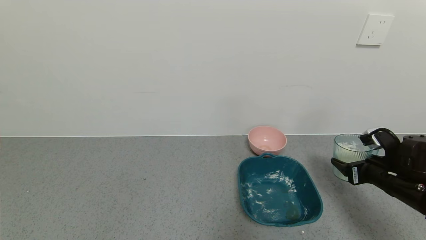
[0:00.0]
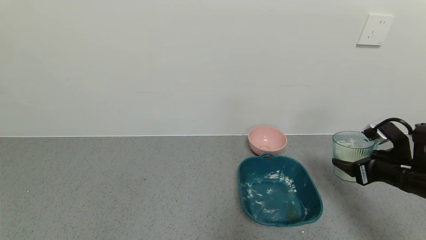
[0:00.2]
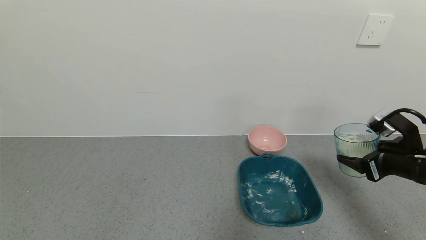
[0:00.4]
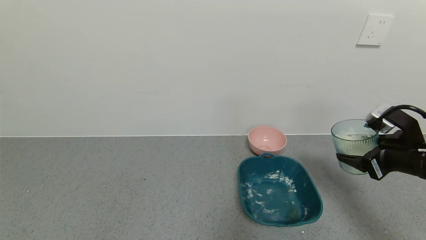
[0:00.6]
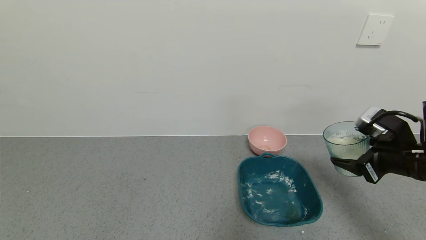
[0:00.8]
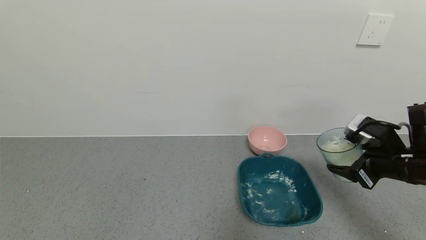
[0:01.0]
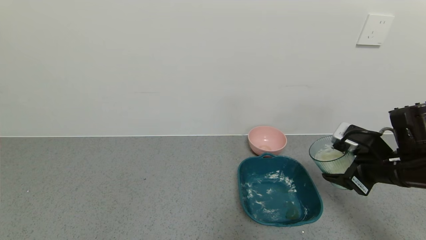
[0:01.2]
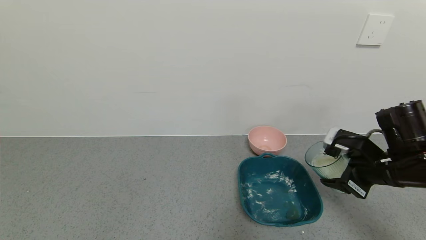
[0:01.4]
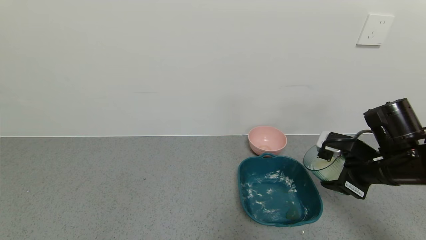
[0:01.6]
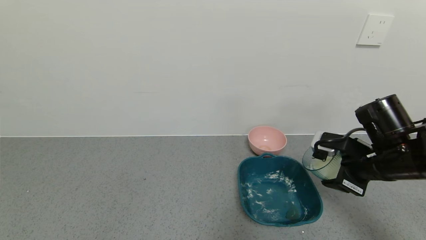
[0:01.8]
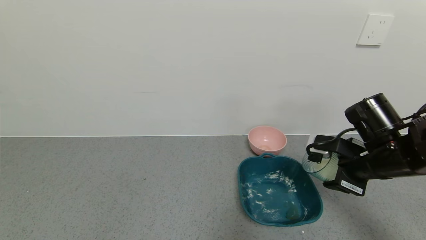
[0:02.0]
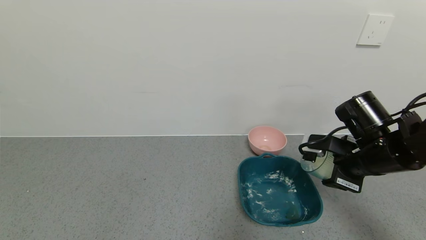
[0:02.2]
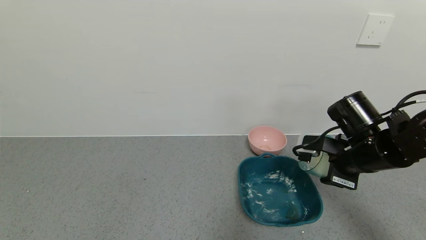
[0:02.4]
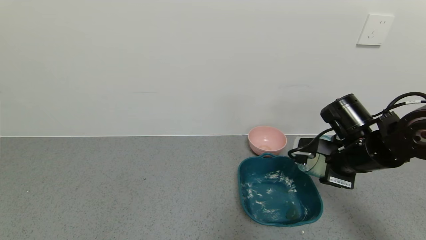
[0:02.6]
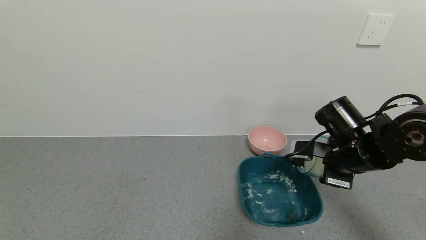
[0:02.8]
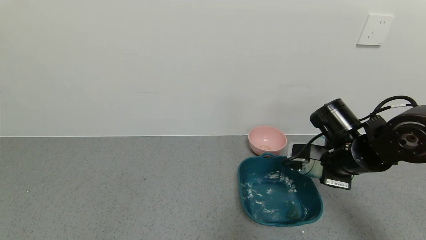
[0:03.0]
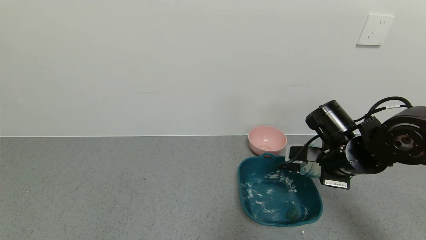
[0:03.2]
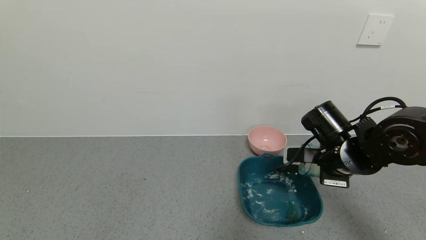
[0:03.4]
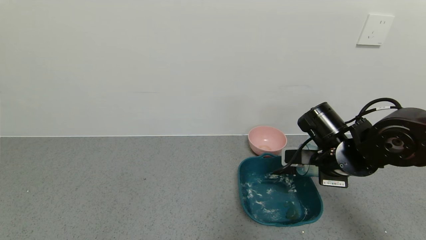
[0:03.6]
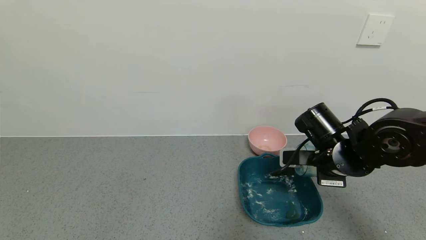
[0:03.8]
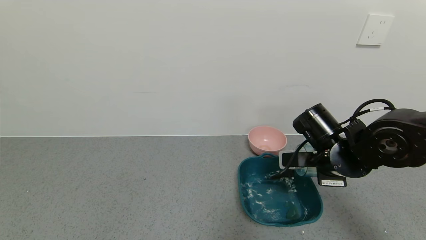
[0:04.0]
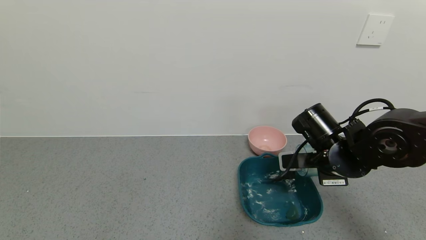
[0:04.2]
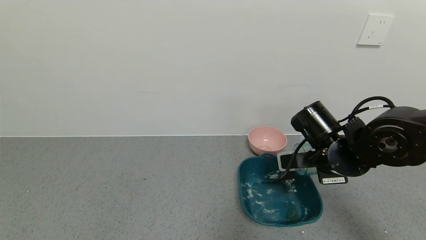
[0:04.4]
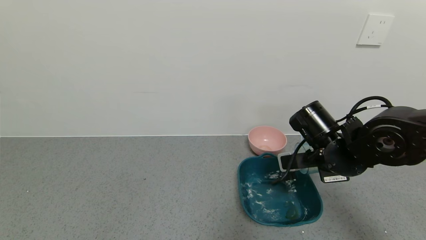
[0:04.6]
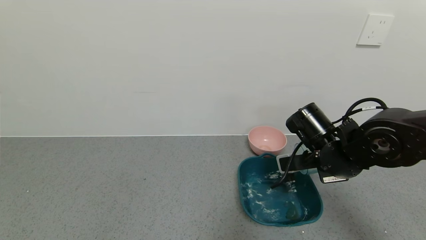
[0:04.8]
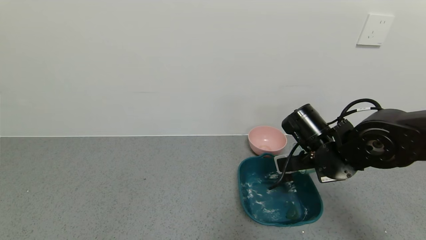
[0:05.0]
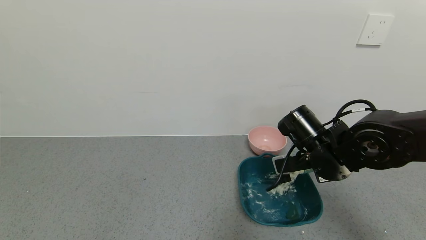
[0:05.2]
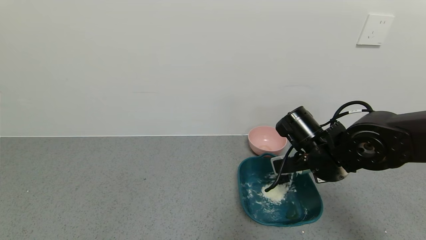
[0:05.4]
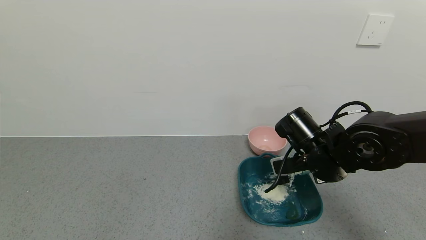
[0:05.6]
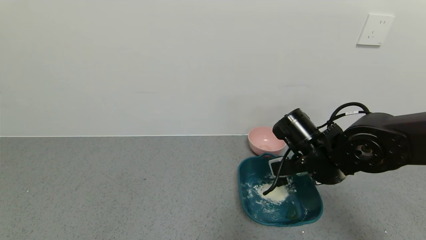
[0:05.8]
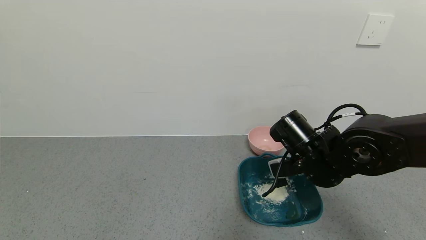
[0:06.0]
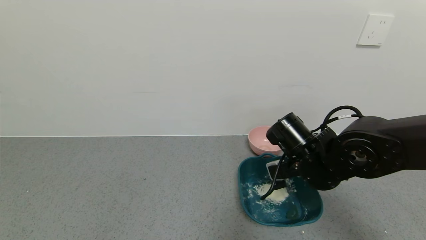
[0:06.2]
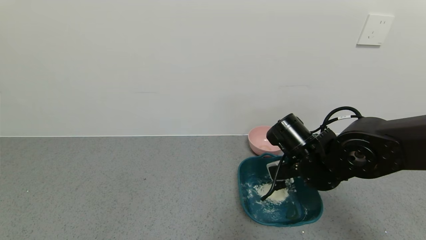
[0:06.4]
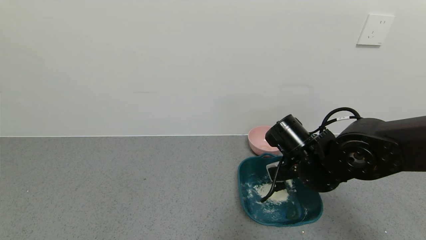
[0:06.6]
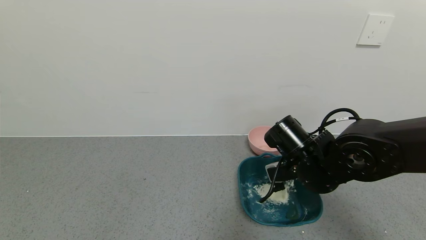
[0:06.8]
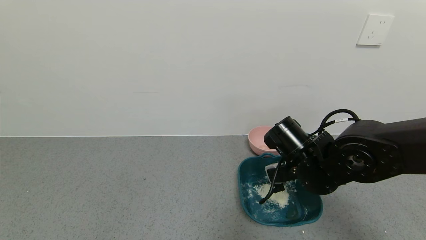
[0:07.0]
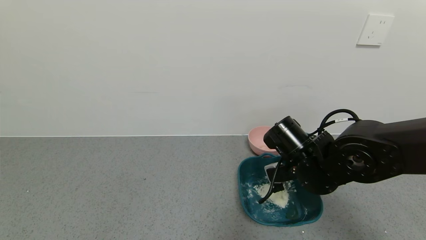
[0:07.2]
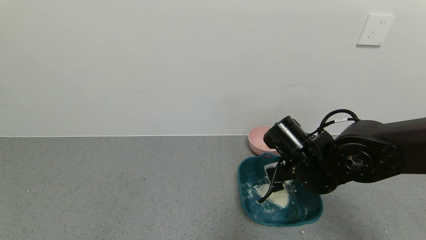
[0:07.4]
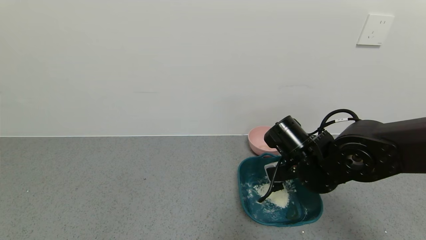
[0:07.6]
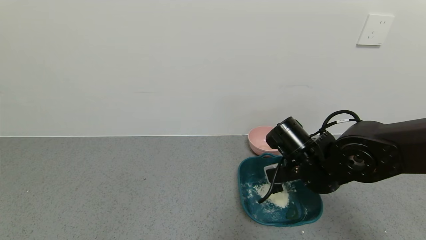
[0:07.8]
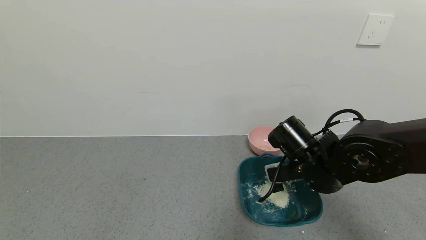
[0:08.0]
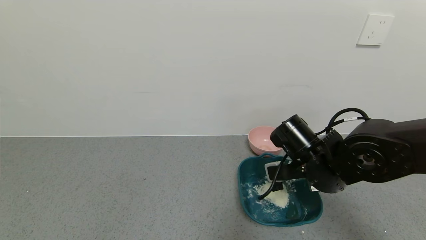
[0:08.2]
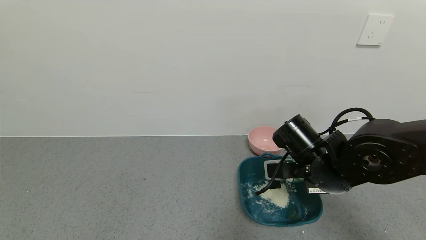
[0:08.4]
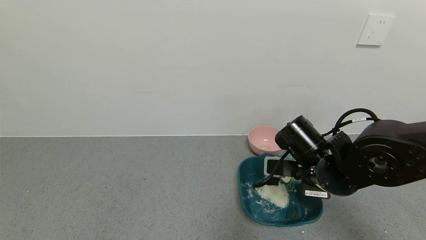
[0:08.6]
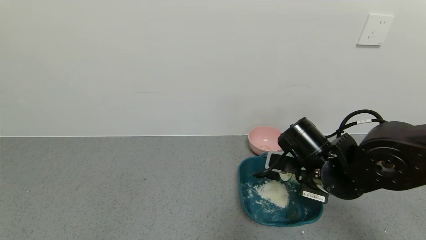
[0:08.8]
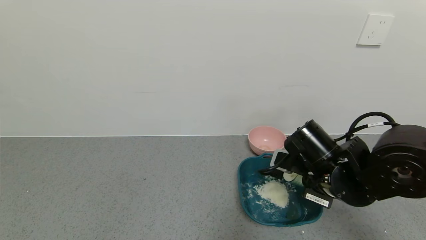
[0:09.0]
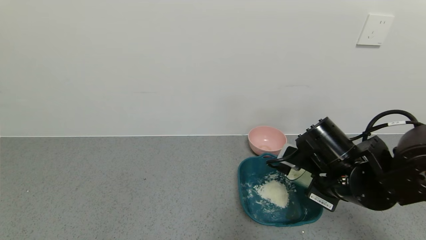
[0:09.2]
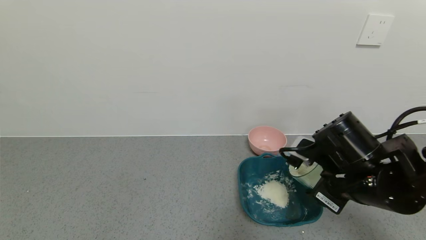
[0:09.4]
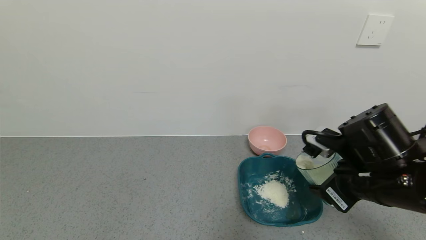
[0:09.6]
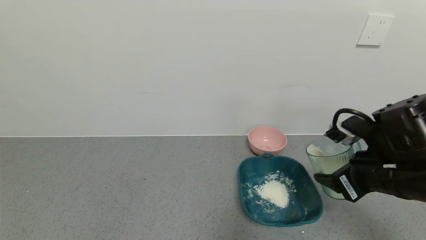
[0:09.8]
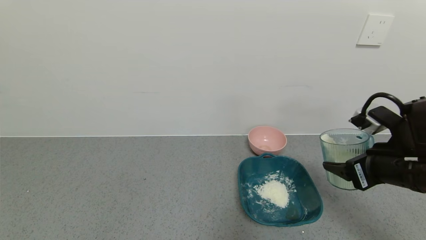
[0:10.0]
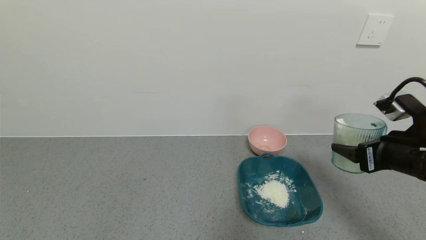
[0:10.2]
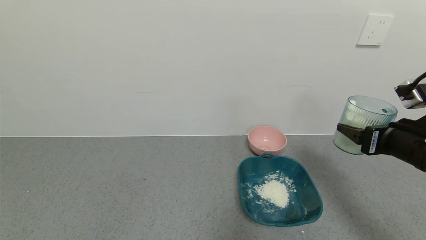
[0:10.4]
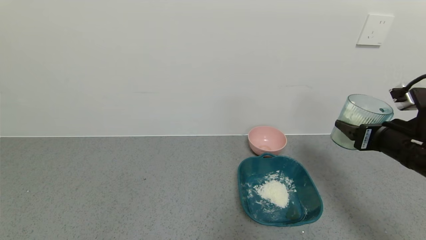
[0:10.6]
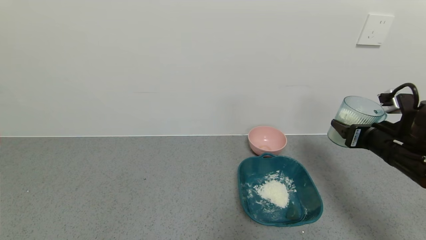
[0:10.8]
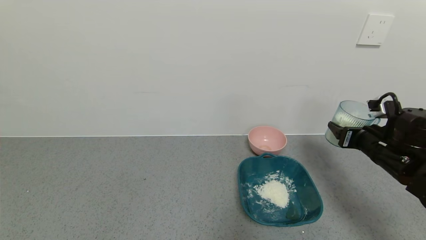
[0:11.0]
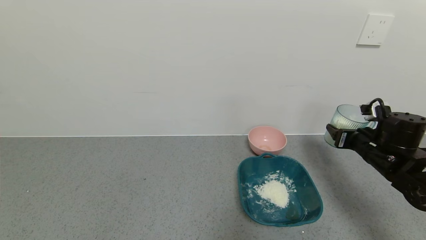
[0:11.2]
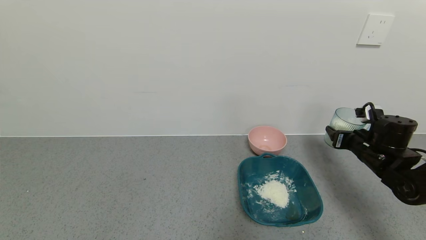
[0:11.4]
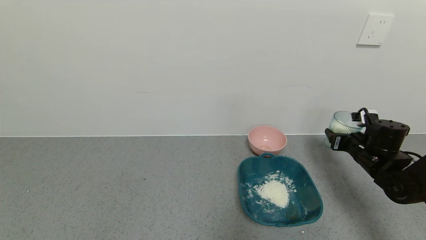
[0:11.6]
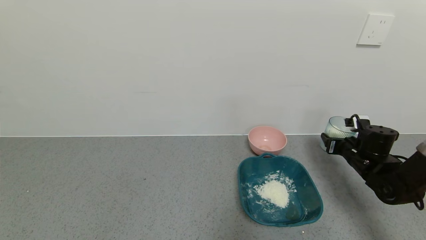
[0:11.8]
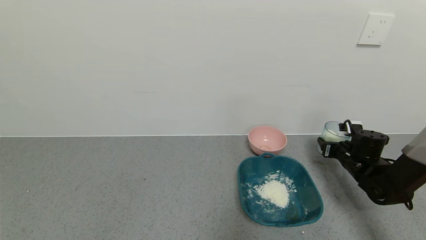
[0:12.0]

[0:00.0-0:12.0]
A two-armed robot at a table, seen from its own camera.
Task of the whole recording: use a gripper to pick up the cup and pour the powder into a bowl or tray.
Step, 0:00.0 to 0:09.0: Pour the powder into the pink bowl with the right gripper.
0:00.0 to 0:01.6: The right gripper shifts about 10 cm upward and to the left.
0:01.6 to 0:03.0: The right gripper shifts by about 5 cm.
0:03.0 to 0:04.4: The grippers stay close to where they were, moving slightly.
0:04.4 to 0:06.0: The grippers move only a little.
0:06.0 to 0:07.6: The two grippers keep their place.
0:09.0 to 0:10.4: The right gripper travels to the right by about 15 cm.
0:10.4 to 0:12.0: The right gripper moves downward and forward, some 25 cm.

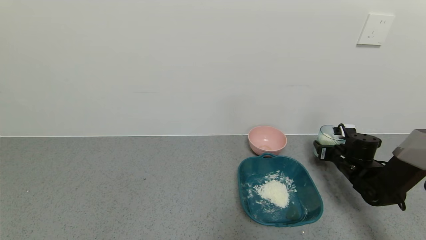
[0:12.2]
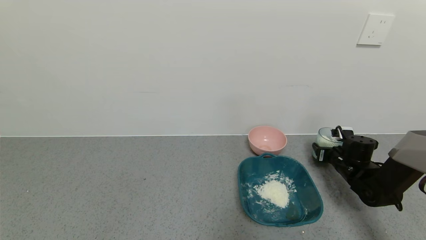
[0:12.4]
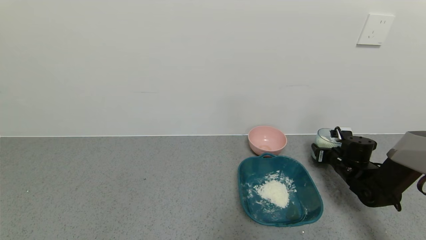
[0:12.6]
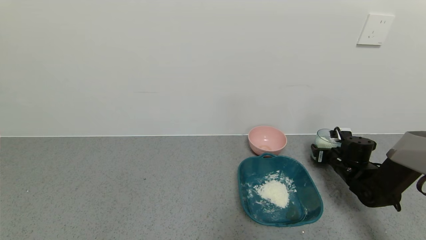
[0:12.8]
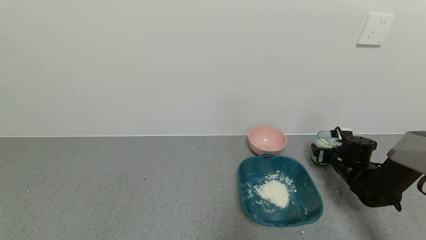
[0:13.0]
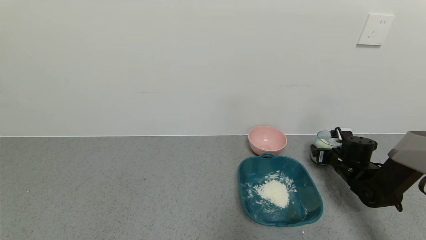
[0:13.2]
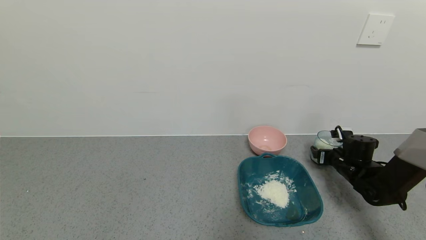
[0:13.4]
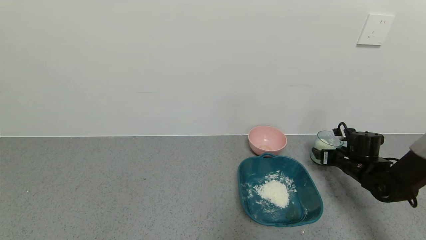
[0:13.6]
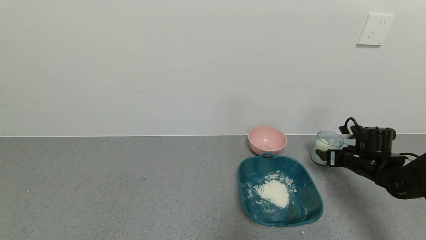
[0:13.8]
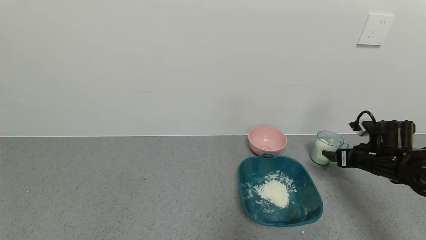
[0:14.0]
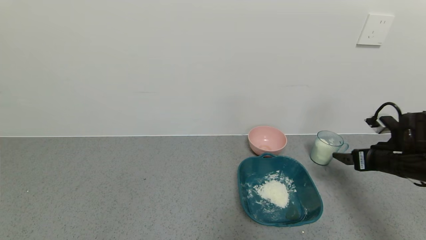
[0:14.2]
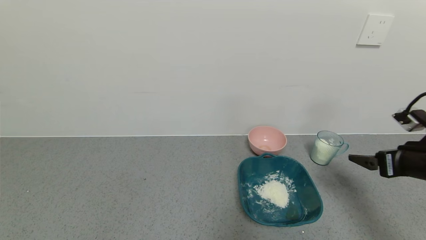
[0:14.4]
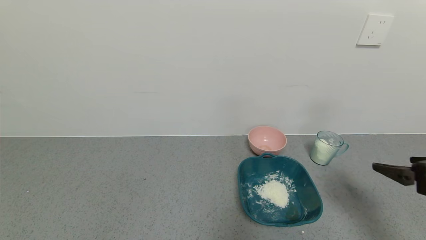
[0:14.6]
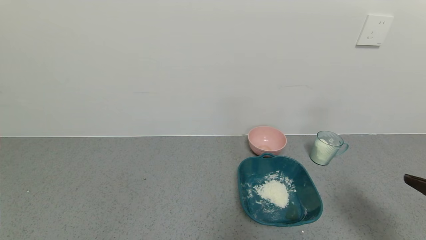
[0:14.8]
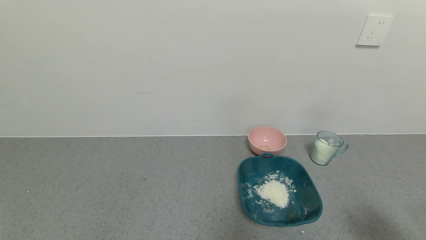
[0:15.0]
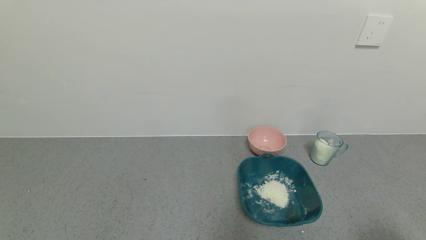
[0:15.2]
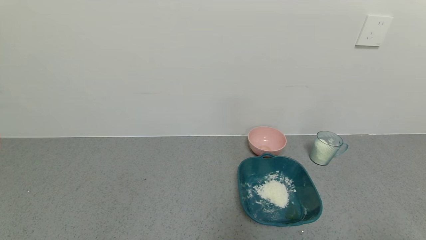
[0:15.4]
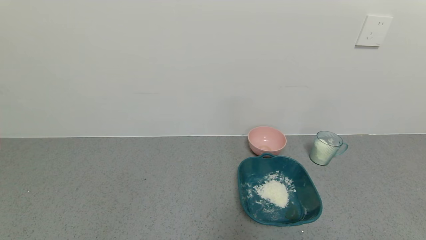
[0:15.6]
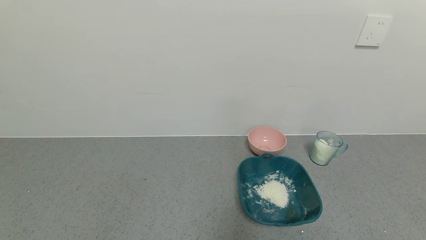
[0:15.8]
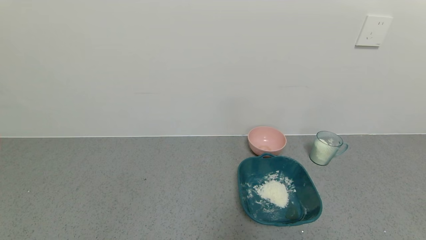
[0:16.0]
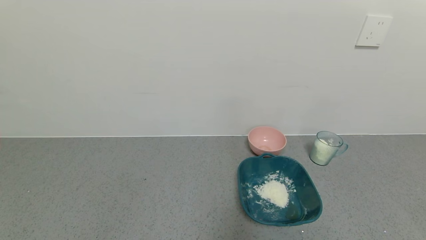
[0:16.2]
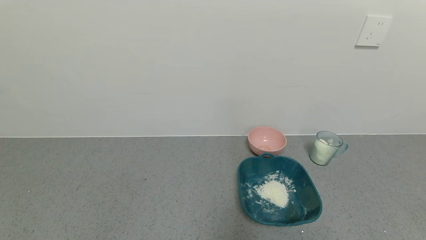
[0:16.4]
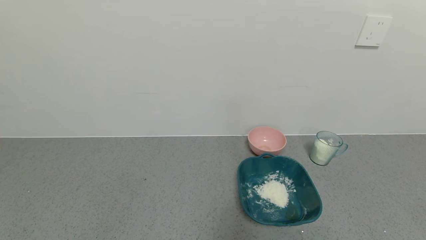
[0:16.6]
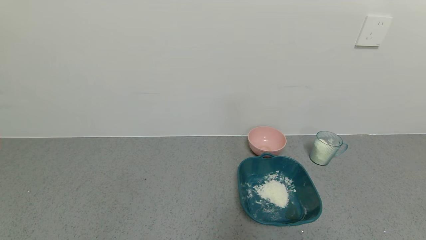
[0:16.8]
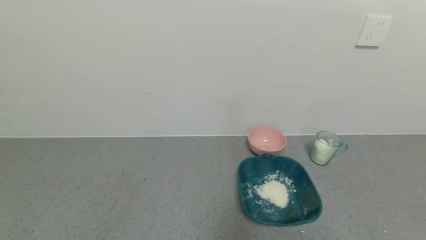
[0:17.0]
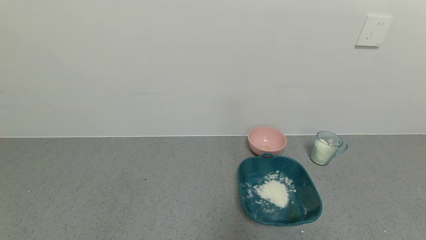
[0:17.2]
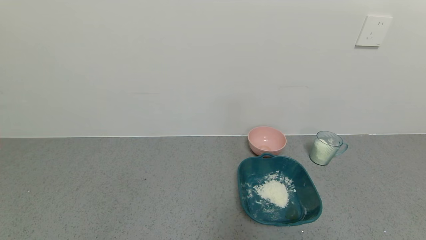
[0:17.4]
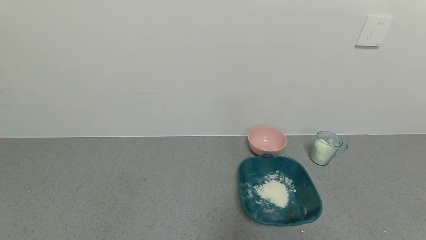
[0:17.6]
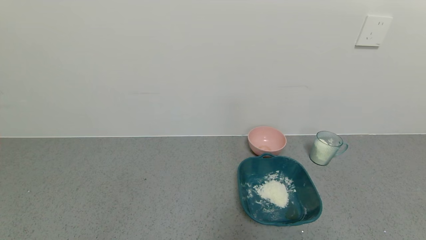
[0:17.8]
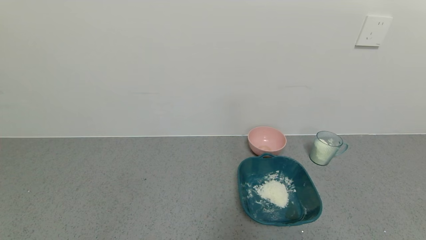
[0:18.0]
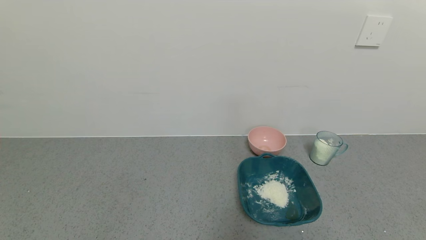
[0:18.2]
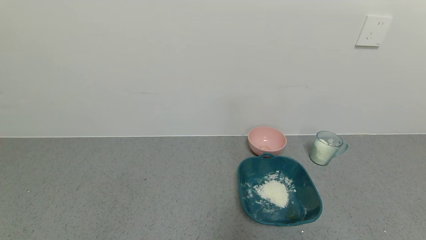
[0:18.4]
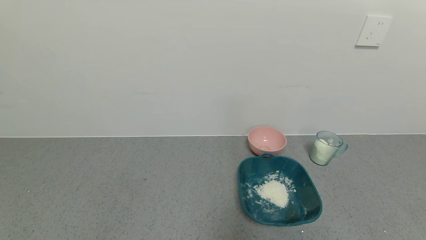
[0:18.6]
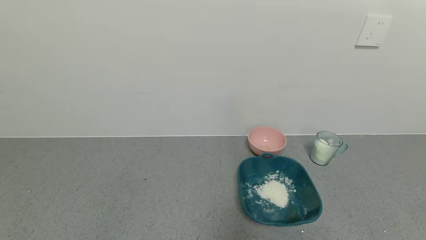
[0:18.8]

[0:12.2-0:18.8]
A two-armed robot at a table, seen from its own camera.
Task of the whole recording: use a gripper to pick up the cup and pour the powder into a bowl or tray.
0:12.2 to 0:13.8: The right gripper moves some 5 cm, and opens up.
0:13.8 to 0:15.4: The right gripper is displaced backward by approximately 40 cm.
